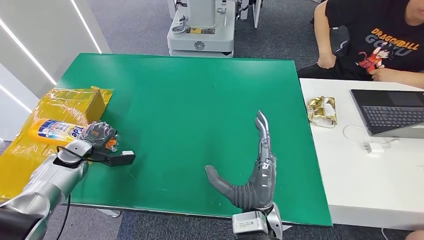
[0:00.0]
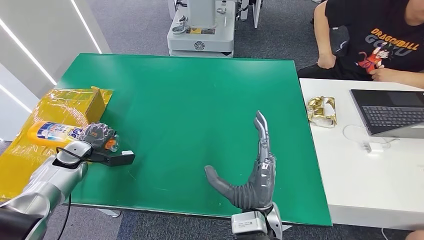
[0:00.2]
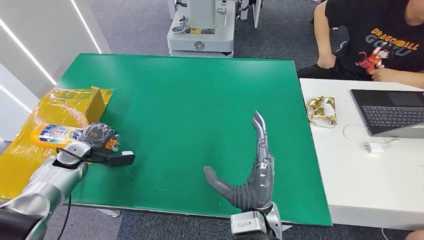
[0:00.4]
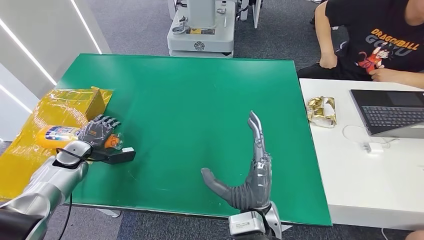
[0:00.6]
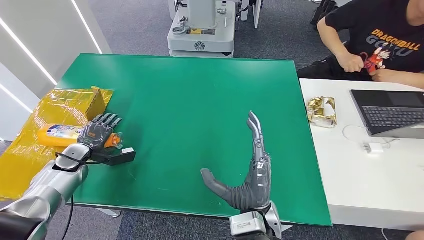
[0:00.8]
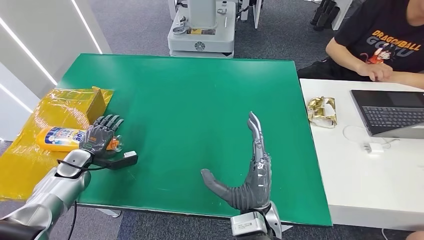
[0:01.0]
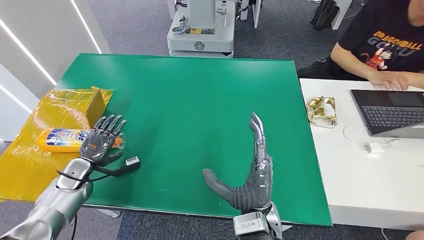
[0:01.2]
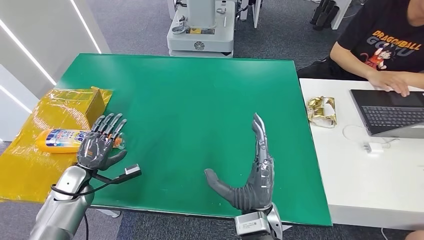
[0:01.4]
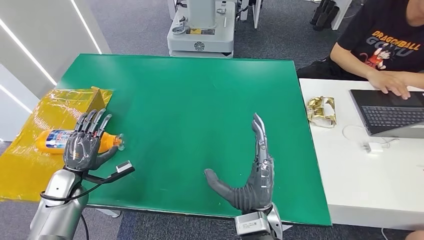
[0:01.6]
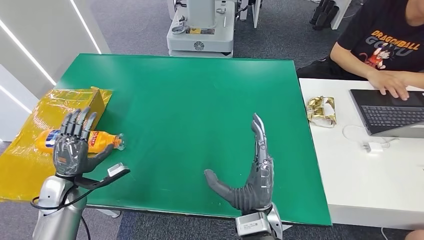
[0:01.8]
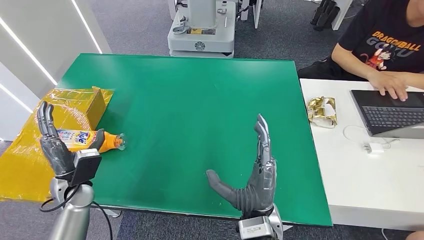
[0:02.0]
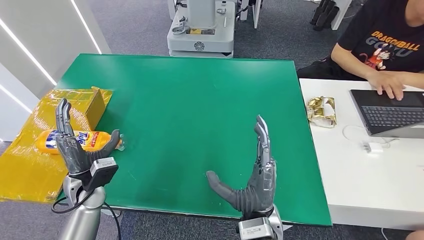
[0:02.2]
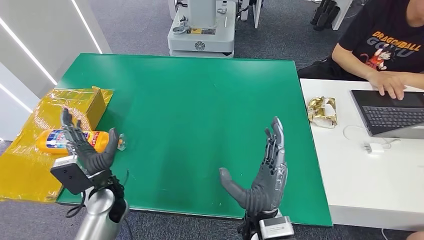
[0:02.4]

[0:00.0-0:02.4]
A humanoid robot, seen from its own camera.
Step, 0:00.0 to 0:02.4: Turn the bottle to the front side.
0:00.0 to 0:01.2: The left hand moves roughly 5 cm.
0:01.2 to 0:02.4: The left hand goes some 20 cm to the right and upward.
